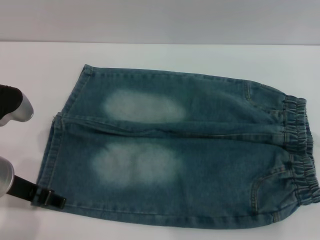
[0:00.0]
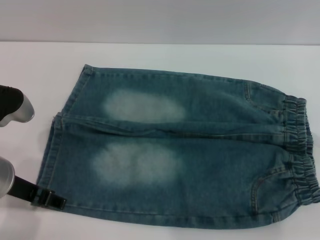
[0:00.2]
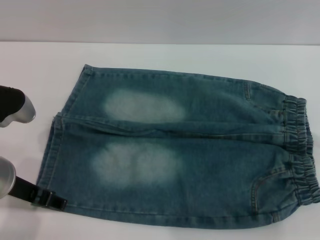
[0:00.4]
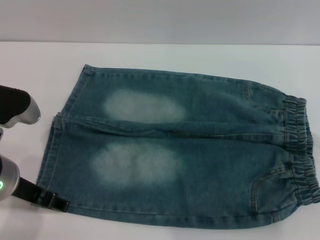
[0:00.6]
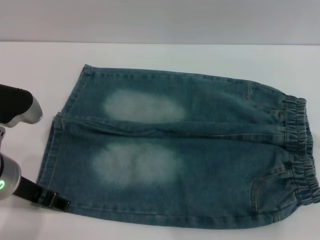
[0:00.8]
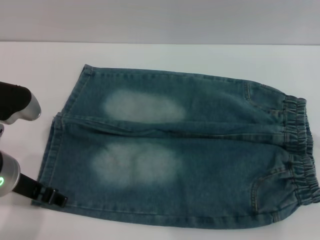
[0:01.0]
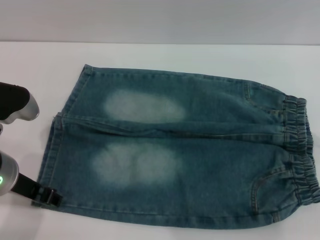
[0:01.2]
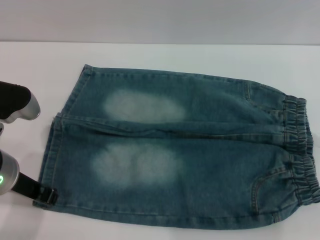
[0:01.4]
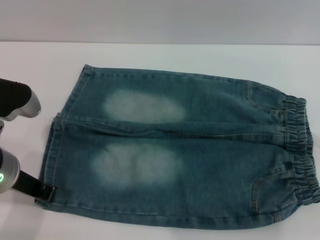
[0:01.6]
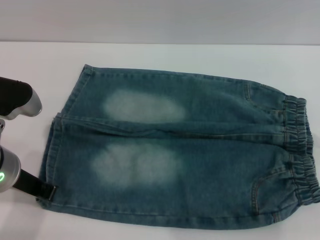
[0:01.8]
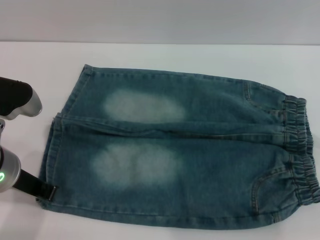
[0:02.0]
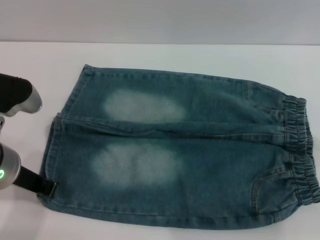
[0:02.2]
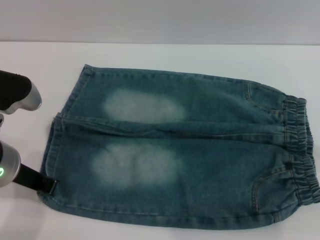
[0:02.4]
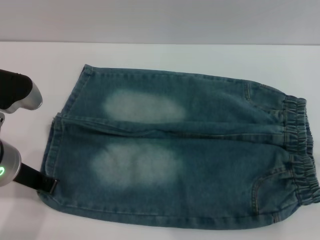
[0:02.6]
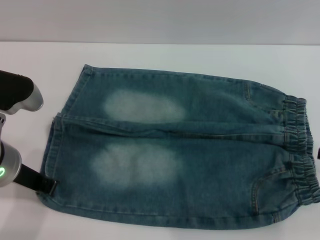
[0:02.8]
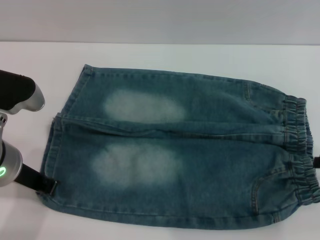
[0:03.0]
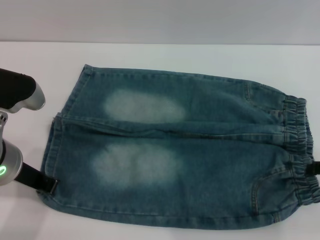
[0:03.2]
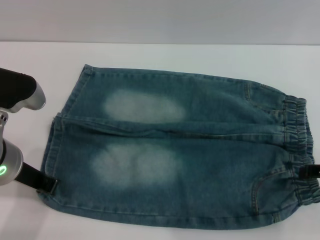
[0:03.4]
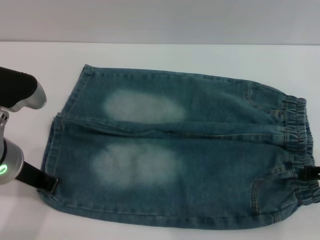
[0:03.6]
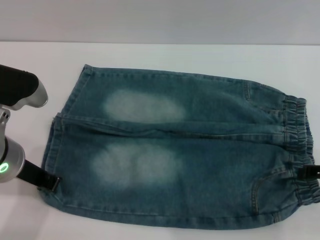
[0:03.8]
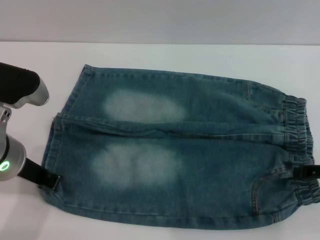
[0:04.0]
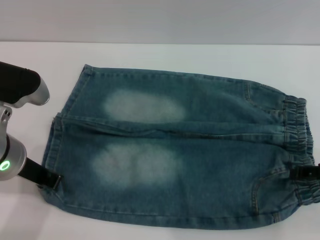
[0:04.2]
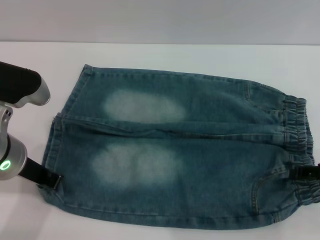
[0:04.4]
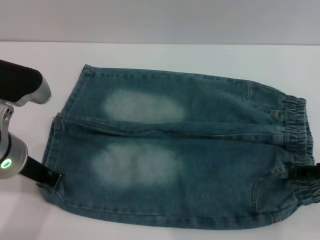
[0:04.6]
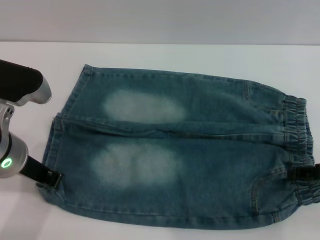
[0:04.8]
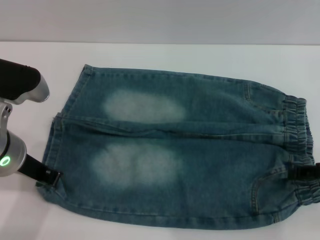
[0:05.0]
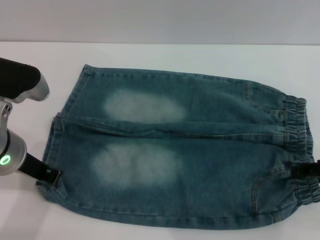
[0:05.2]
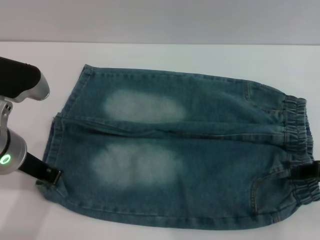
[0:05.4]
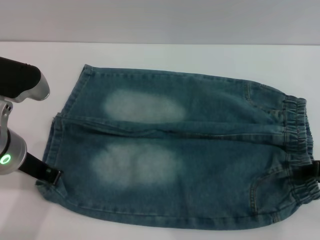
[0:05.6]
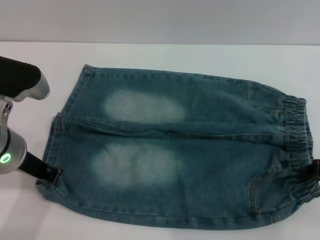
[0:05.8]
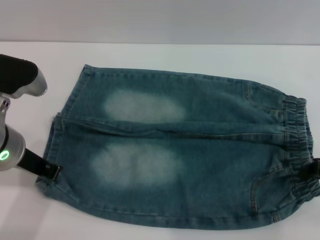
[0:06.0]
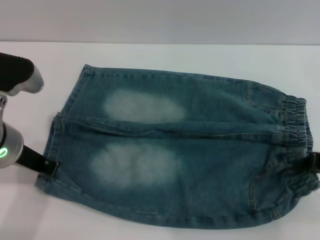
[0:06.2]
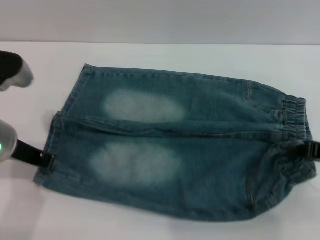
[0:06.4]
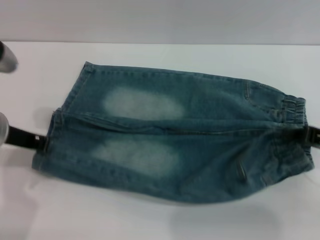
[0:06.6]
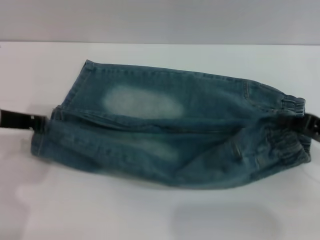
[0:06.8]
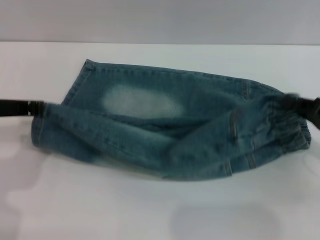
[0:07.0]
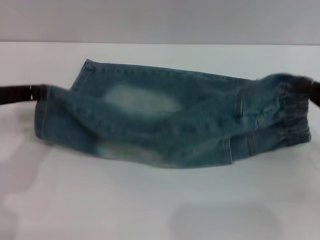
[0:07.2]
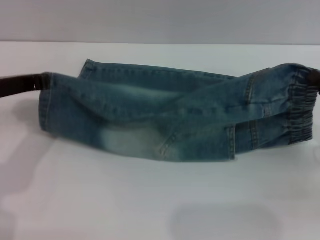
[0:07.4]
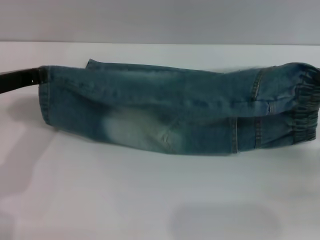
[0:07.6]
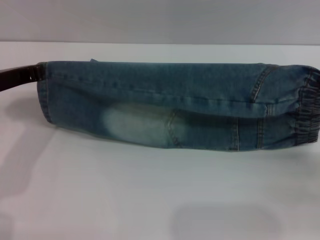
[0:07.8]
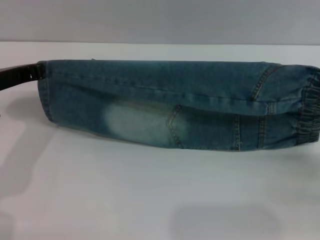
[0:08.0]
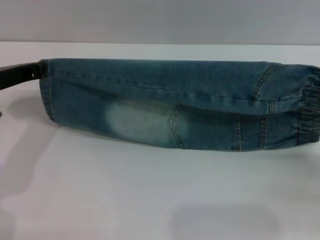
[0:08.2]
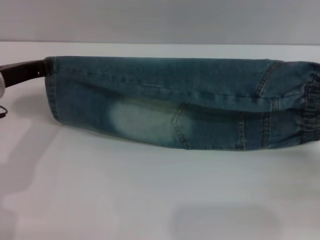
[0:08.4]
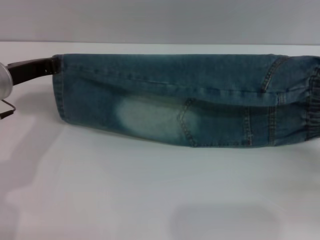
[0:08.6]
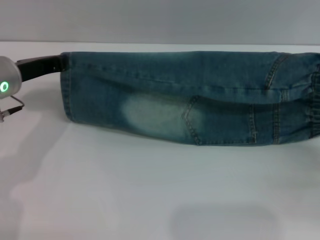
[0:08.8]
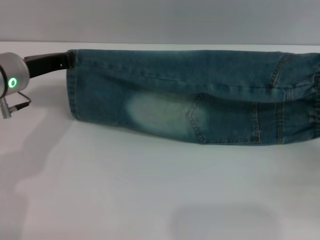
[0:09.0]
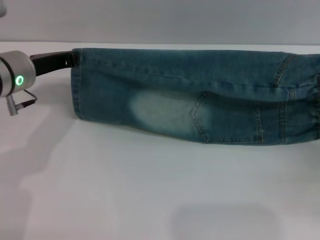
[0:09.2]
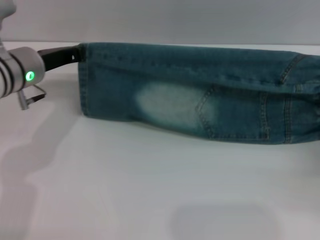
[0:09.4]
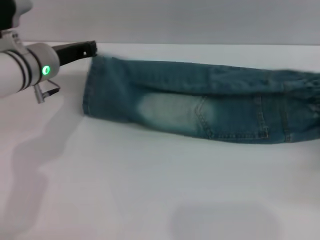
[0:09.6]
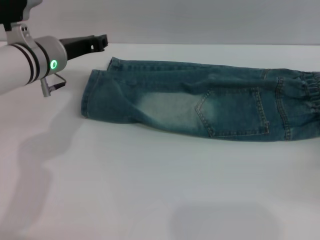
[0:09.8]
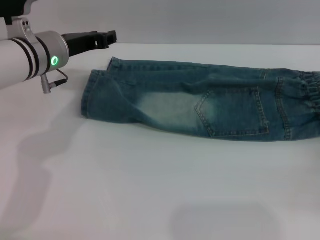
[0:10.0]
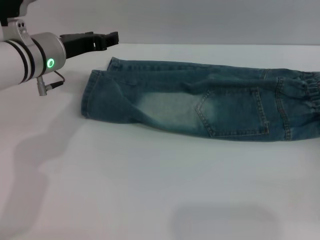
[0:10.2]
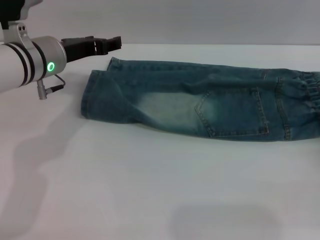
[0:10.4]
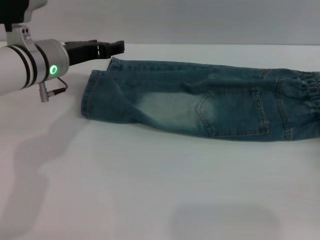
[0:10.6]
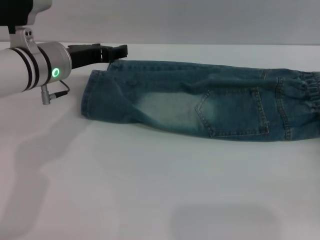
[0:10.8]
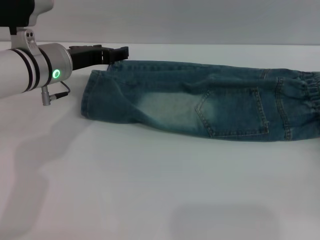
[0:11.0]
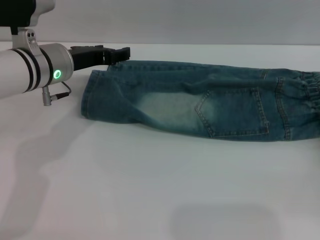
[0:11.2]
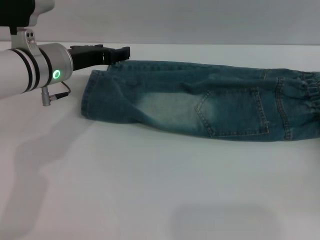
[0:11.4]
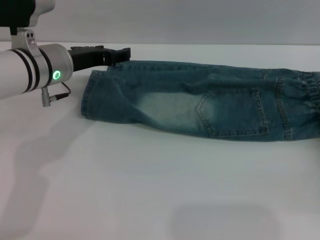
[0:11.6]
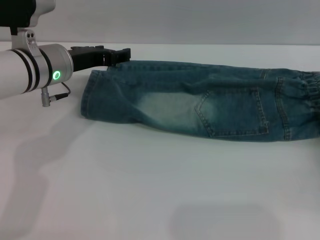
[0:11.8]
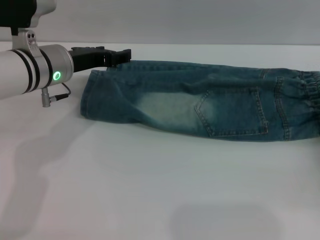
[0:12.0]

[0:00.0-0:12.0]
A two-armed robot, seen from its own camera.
Step, 0:00.0 to 0:10.0: Fold the bottom of the pants upward with both grippers.
0:00.0 to 0:01.6: The left gripper closes its fingers.
0:01.6 to 0:04.4: There are only small adjustments of the grippers.
0:06.0 to 0:07.6: The right gripper changes place by roughly 5 cm, while the left gripper heads to the left, covering roughly 5 cm.
0:09.0 to 0:10.4: The left gripper ends up roughly 5 cm from where it was, and opens up, while the right gripper opens its fingers.
0:10.4 to 0:12.0: The grippers make only small movements.

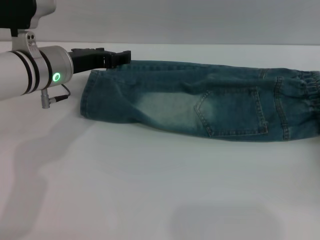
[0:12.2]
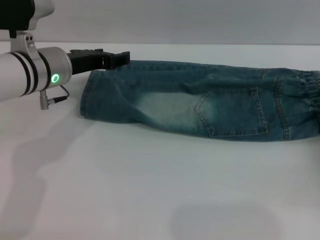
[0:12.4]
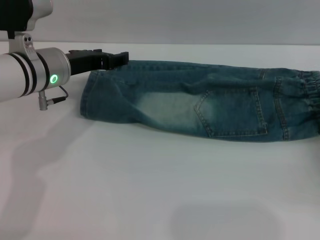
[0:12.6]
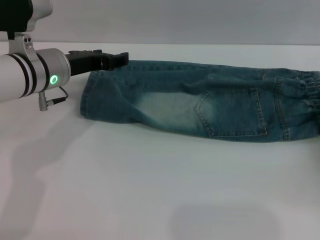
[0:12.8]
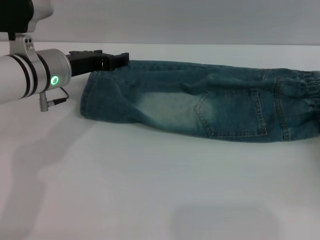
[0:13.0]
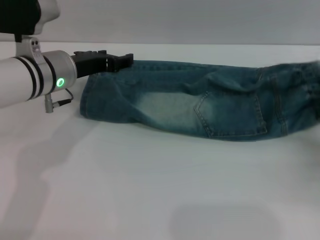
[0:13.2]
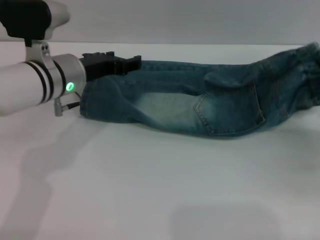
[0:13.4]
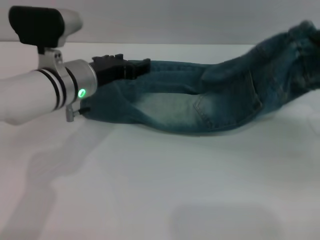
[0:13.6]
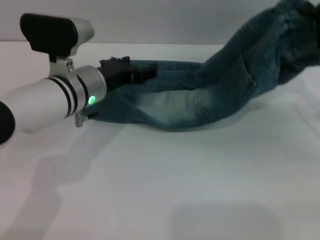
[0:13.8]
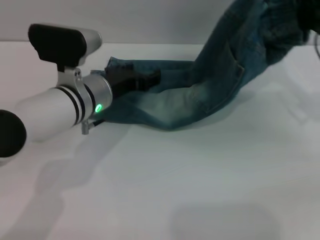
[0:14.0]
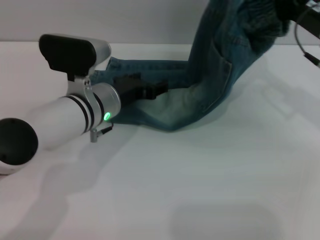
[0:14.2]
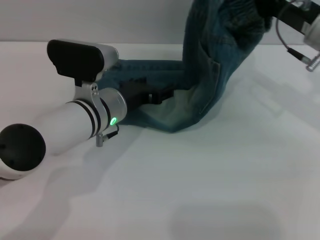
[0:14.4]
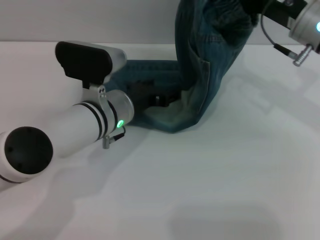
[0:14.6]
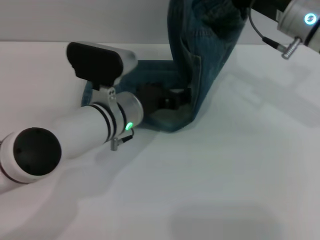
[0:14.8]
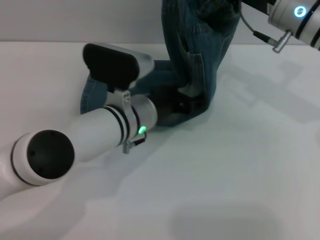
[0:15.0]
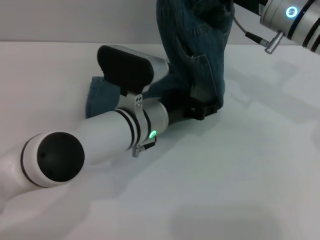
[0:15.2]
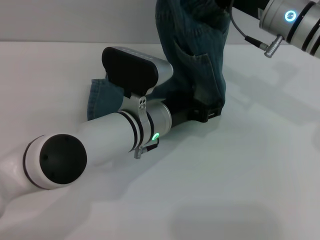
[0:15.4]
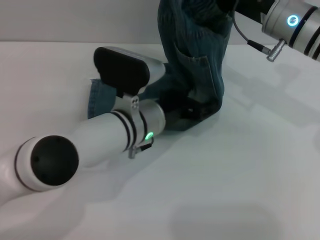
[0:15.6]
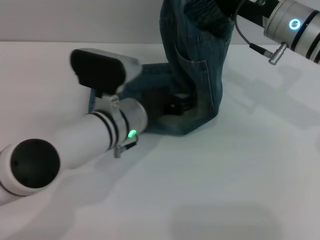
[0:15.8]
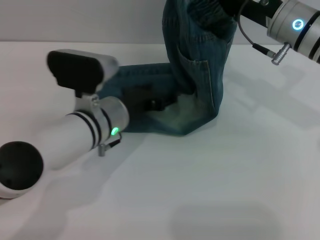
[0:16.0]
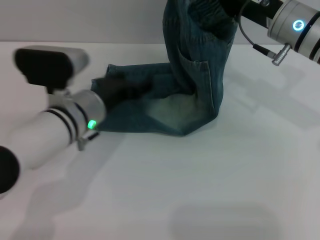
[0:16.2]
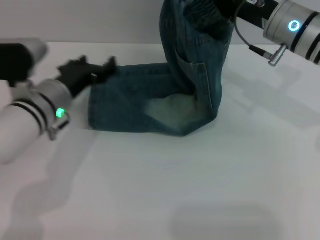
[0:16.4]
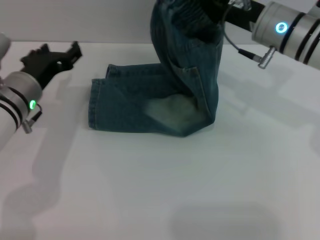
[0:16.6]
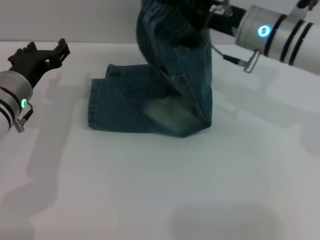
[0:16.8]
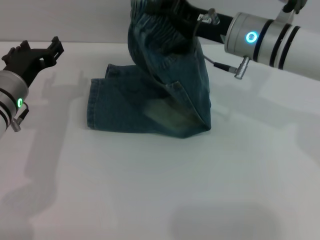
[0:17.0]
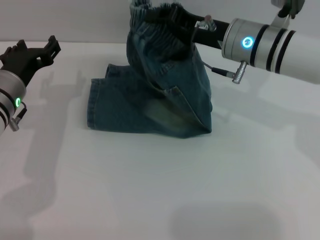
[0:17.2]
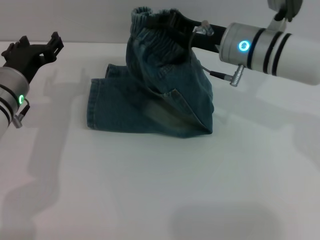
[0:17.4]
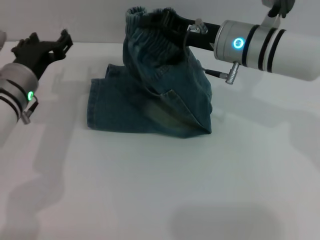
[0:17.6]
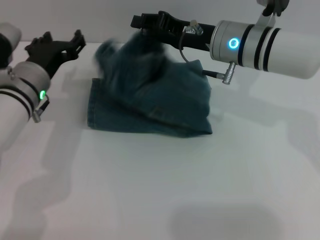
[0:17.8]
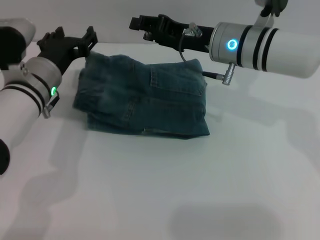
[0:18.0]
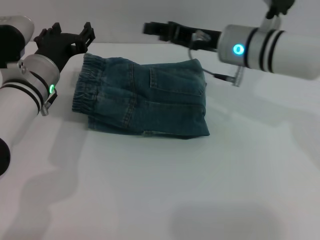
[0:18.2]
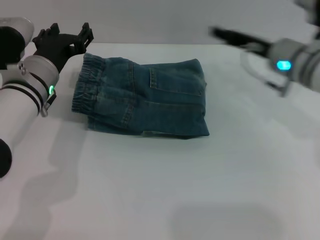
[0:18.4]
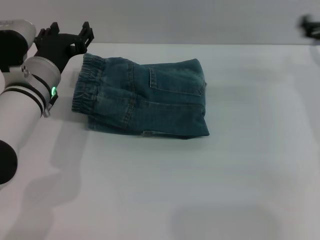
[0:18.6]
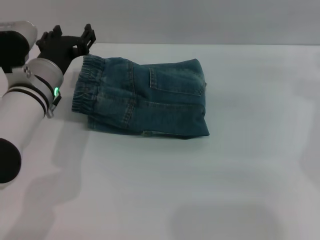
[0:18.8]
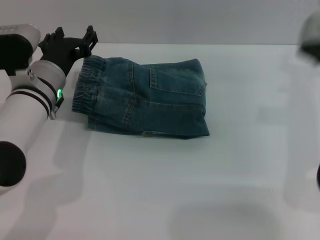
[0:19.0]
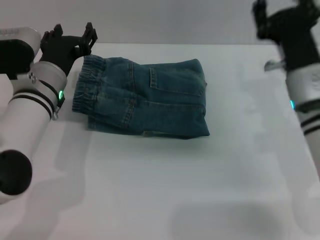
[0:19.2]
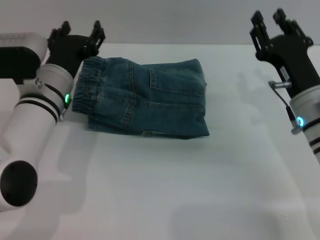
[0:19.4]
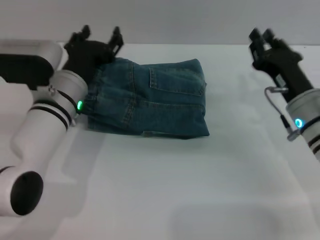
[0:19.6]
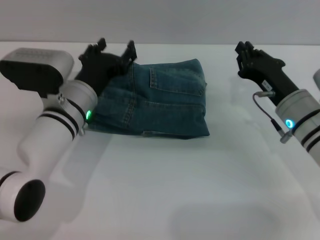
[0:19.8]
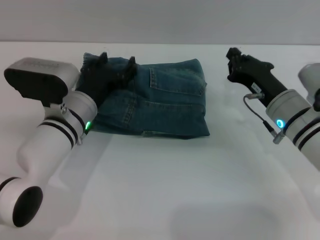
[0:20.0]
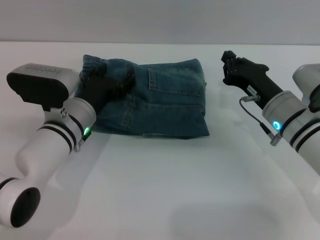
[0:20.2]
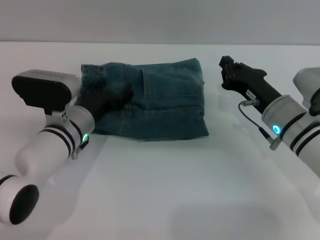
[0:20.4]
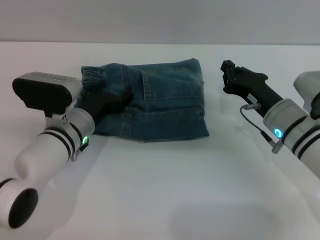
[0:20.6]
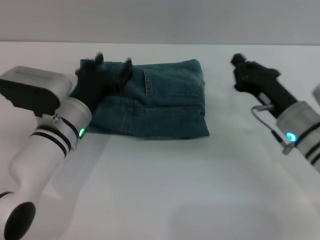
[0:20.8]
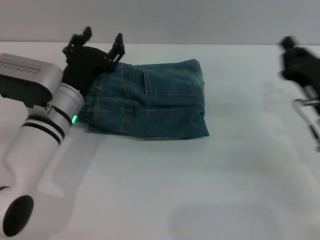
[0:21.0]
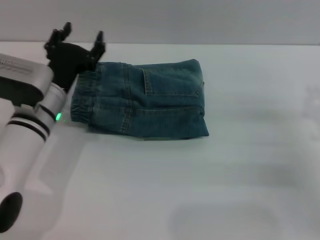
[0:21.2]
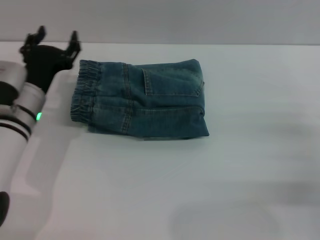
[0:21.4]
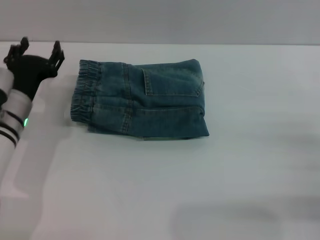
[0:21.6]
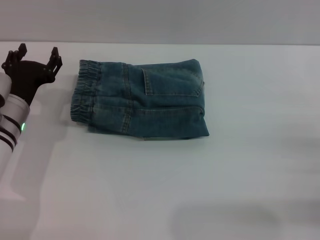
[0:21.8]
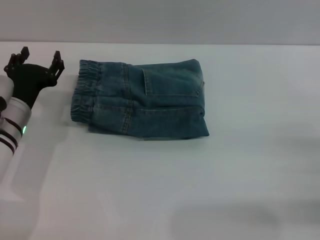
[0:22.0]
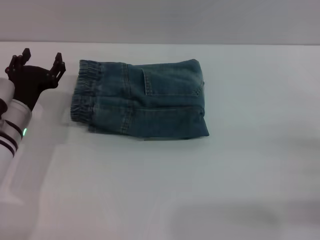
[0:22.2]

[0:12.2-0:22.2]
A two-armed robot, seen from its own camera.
Step, 0:12.2 to 0:18.0: Fold the pants from right to left with the right gripper.
0:12.2 to 0:13.6: The right gripper is displaced upward by some 5 cm, and closes.
0:13.6 to 0:15.0: The right gripper is displaced to the left, forward and upward by roughly 20 cm. The left gripper moves to the right, approximately 10 cm.
0:15.0 to 0:16.4: The left gripper shifts roughly 10 cm to the left.
0:16.4 to 0:18.0: The right gripper moves to the left, approximately 5 cm.
0:18.0 to 0:19.4: The right gripper is displaced backward, to the right and downward by some 15 cm.
0:19.4 to 0:20.8: The right gripper closes its fingers. The left gripper moves approximately 5 cm.
0:20.8 to 0:22.2: The right gripper heads to the right and backward, covering approximately 15 cm, and opens its fingers; the left gripper shifts roughly 10 cm to the left.
